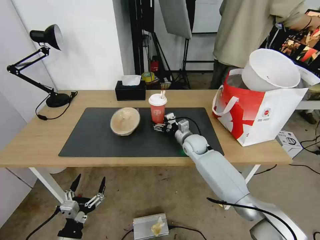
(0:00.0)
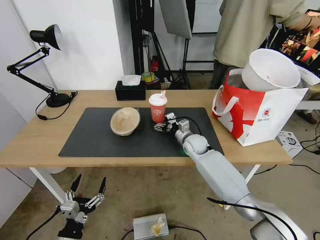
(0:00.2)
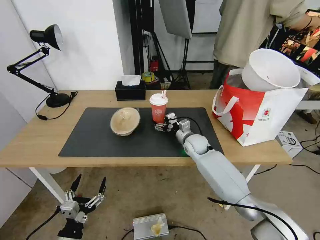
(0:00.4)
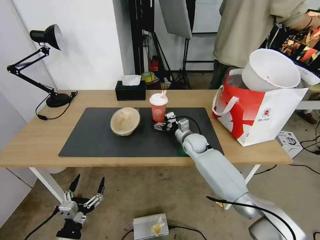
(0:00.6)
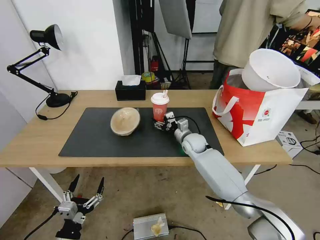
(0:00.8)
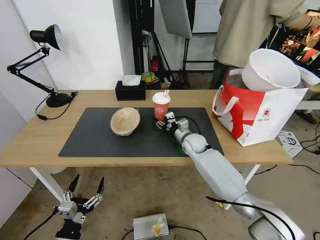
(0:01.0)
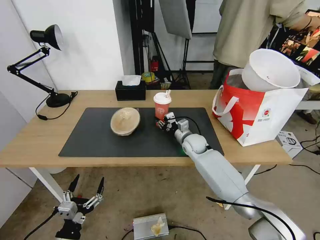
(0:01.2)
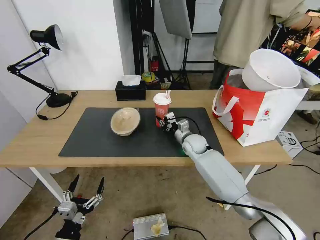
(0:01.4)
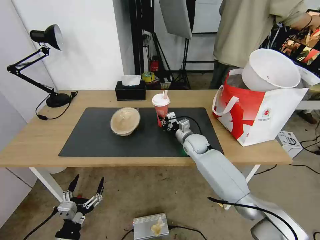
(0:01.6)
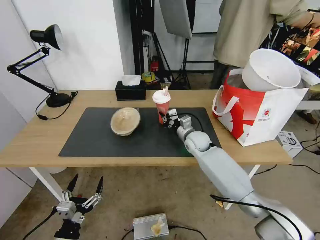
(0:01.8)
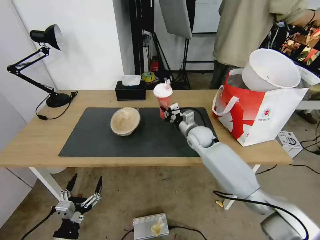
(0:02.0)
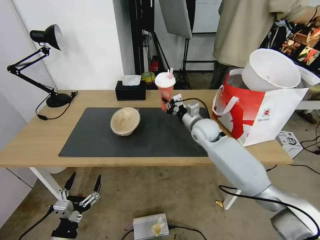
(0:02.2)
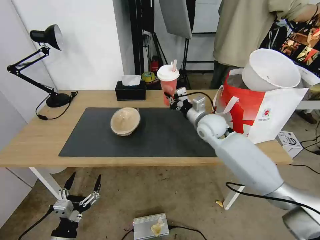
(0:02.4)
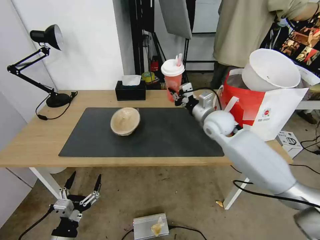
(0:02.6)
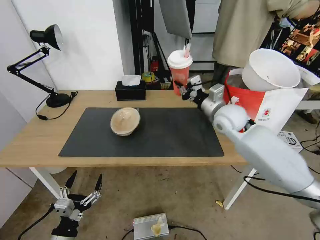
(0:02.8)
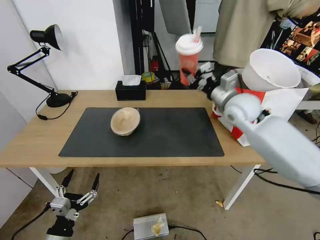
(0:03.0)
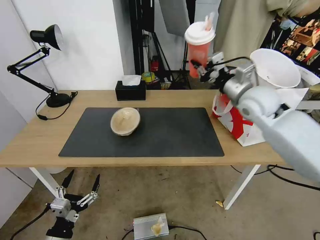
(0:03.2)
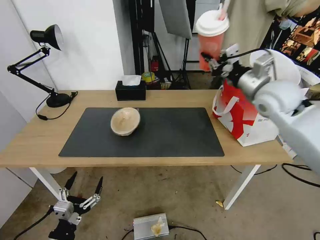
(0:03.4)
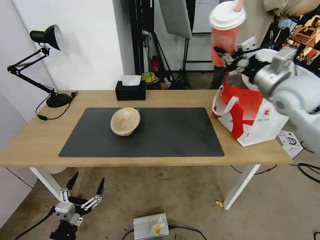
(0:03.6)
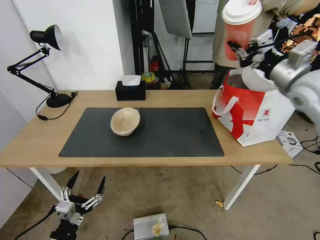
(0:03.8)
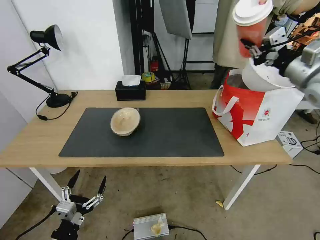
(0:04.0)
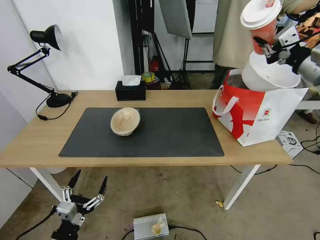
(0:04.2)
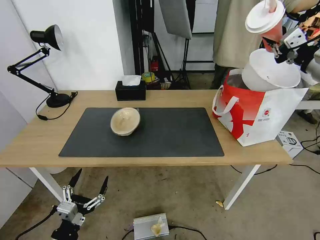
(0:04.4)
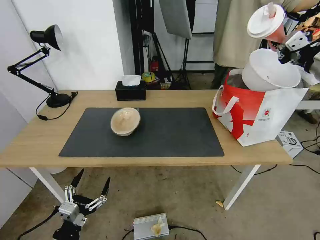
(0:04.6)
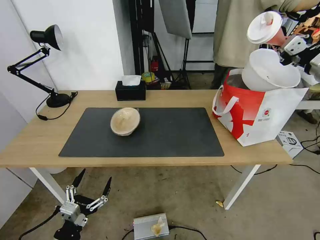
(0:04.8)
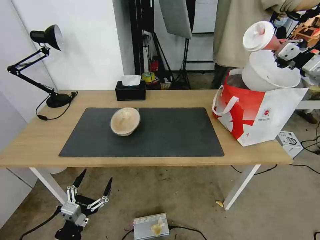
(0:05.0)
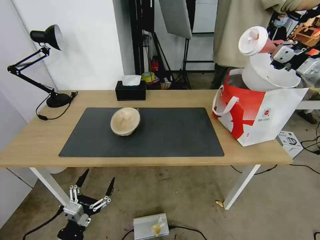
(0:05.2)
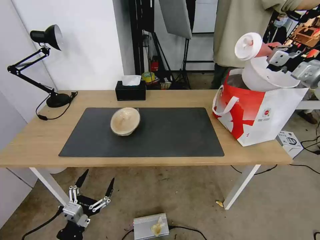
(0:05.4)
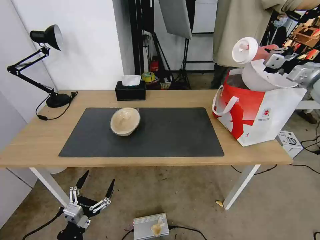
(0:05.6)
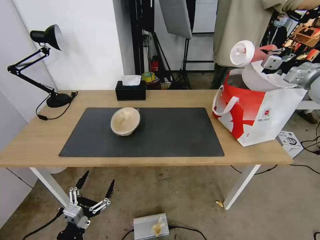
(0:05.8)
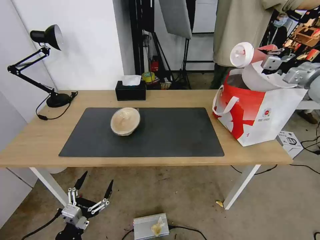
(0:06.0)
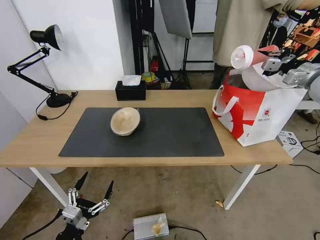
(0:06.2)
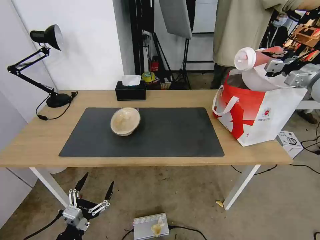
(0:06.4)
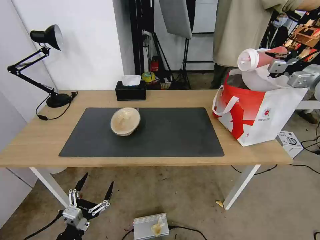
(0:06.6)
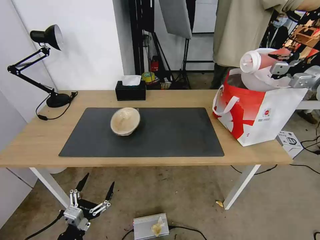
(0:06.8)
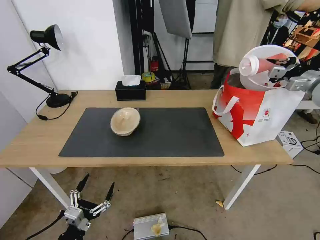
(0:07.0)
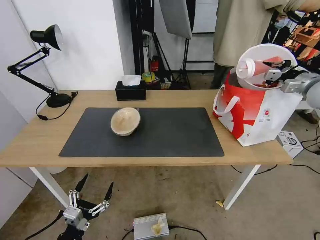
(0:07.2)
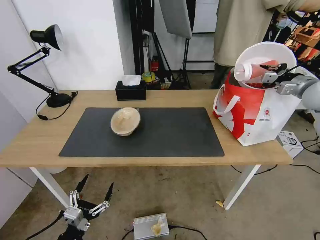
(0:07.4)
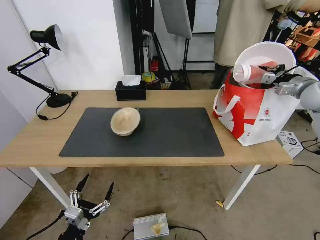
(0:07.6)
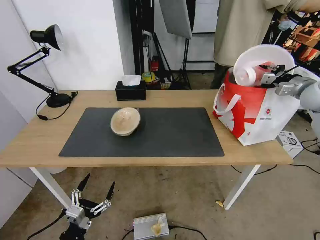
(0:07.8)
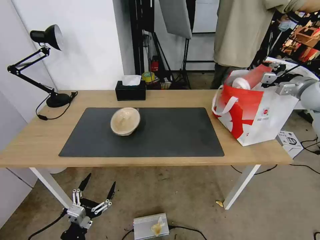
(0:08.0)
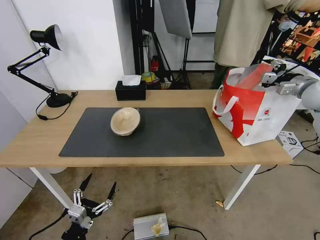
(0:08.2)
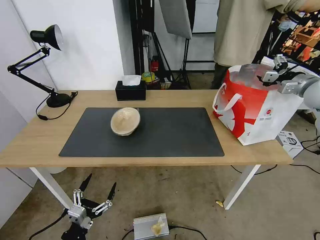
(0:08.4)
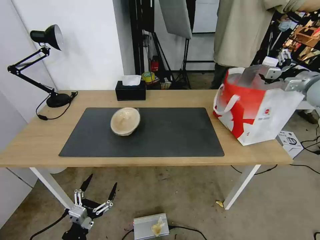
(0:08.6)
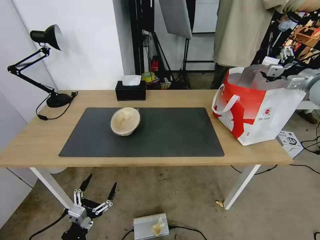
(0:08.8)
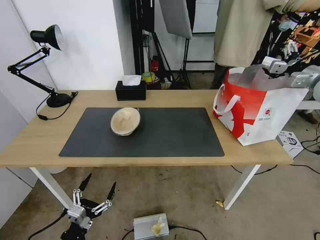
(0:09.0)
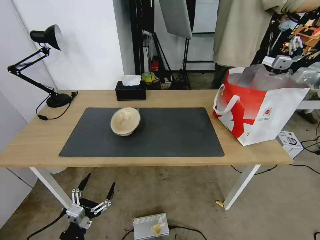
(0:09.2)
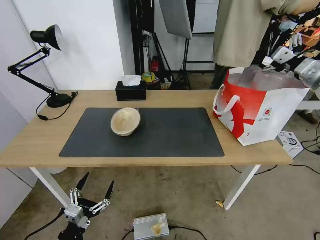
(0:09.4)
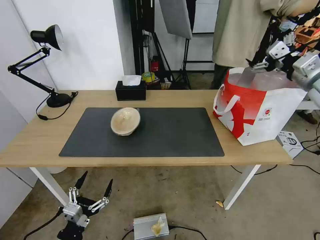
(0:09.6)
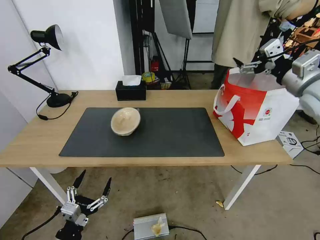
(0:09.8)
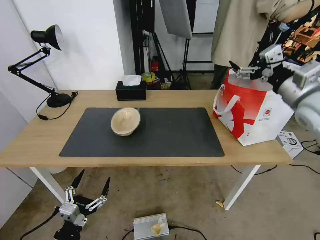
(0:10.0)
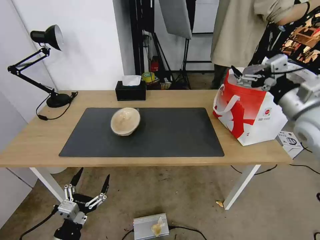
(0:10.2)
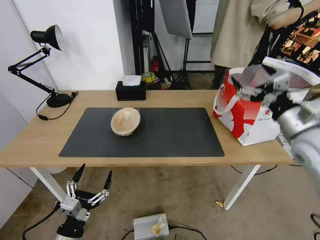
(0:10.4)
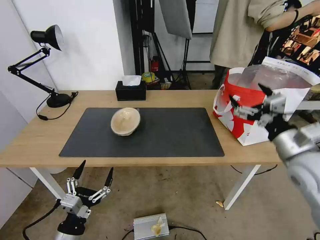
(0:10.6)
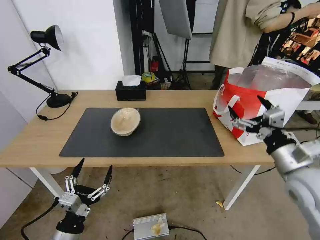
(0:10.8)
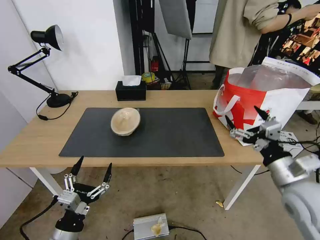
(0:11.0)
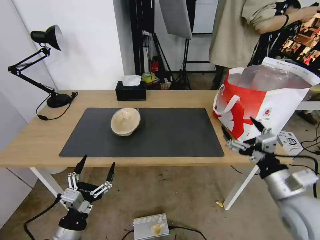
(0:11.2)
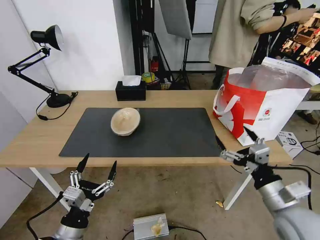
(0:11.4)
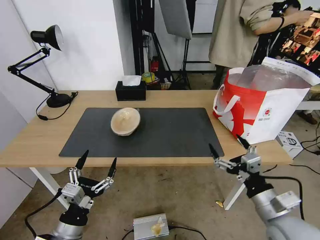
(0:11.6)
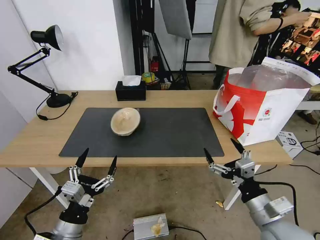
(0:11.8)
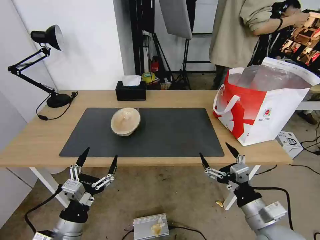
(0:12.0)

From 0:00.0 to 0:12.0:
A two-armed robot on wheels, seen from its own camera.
Task of the whole recording: Pick up the trash from the table and place it into the takeout bag.
From 0:00.0 to 0:01.6: The right gripper closes its fingers.
From 0:01.6 to 0:03.0: The right gripper heads upward and to the right, covering roughly 25 cm.
From 0:03.0 to 0:04.4: The right gripper heads to the right and upward, covering about 20 cm.
From 0:04.4 to 0:06.0: The right gripper goes approximately 5 cm forward.
From 0:06.0 to 0:07.6: The right gripper is displaced downward by roughly 5 cm.
From 0:07.6 to 0:09.0: The right gripper opens up.
From 0:09.0 to 0:10.4: The right gripper goes about 25 cm backward and to the left.
From 0:10.4 to 0:12.0: The left gripper travels upward by approximately 5 cm. The right gripper travels downward, backward and to the left by about 25 cm.

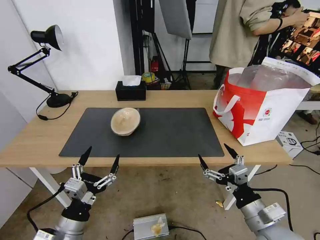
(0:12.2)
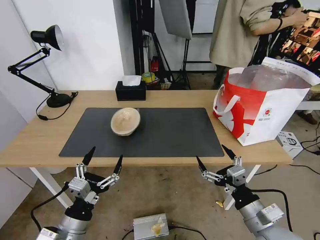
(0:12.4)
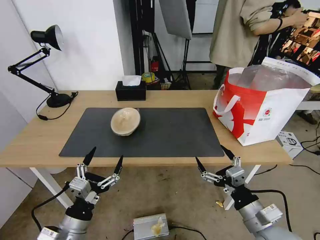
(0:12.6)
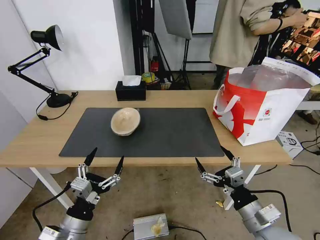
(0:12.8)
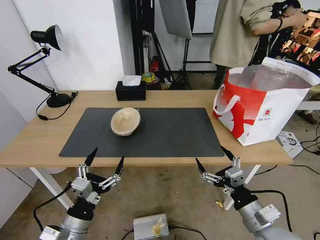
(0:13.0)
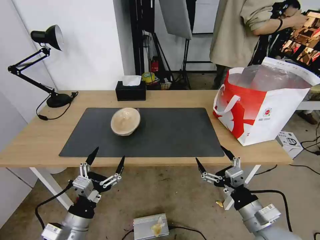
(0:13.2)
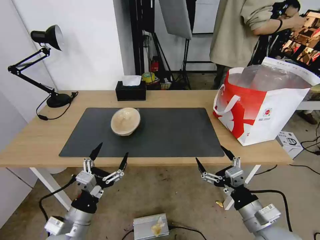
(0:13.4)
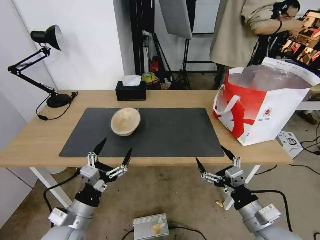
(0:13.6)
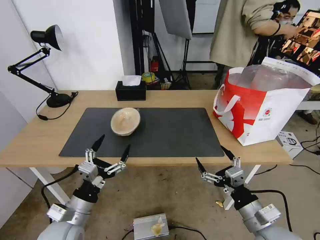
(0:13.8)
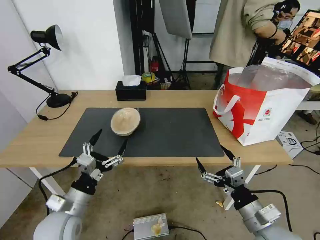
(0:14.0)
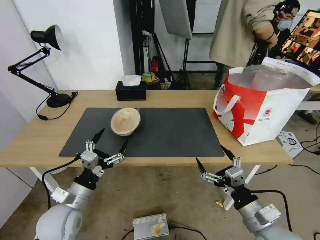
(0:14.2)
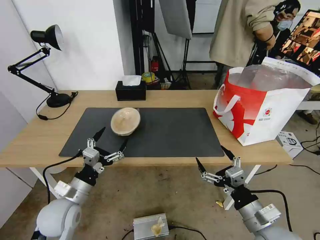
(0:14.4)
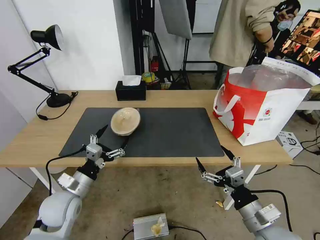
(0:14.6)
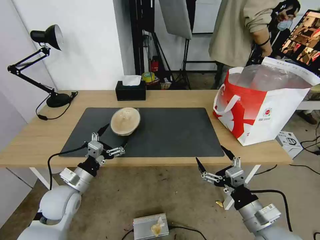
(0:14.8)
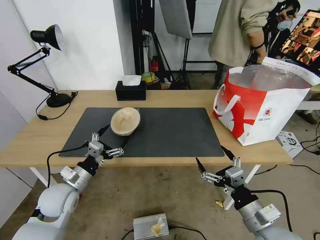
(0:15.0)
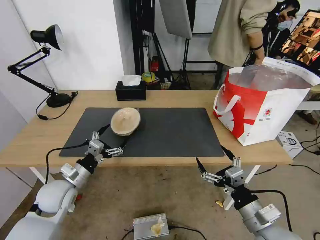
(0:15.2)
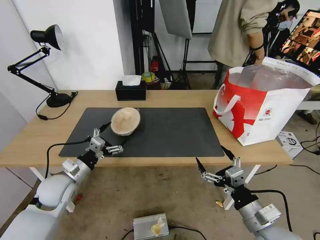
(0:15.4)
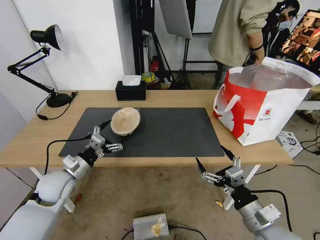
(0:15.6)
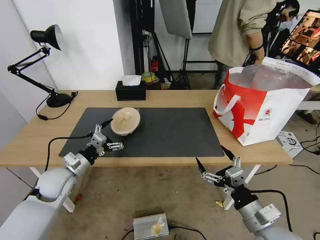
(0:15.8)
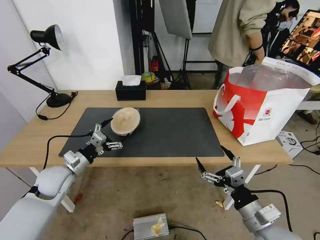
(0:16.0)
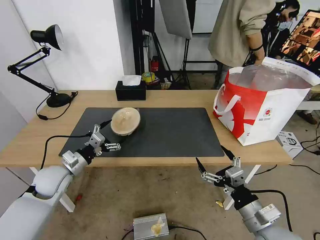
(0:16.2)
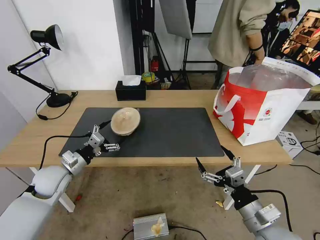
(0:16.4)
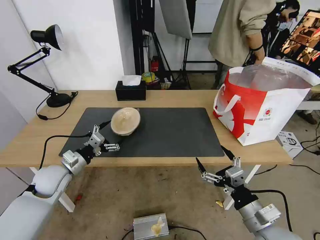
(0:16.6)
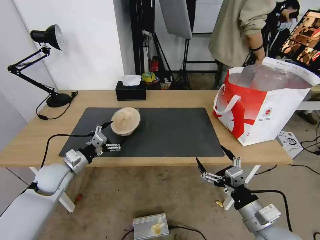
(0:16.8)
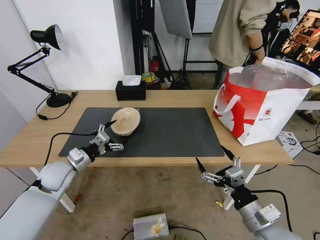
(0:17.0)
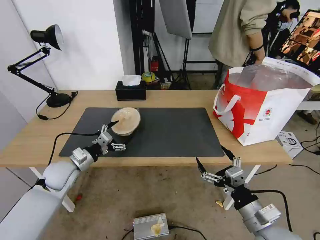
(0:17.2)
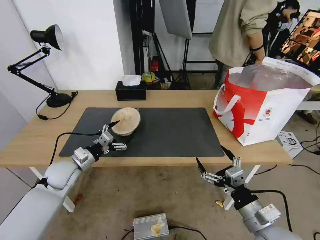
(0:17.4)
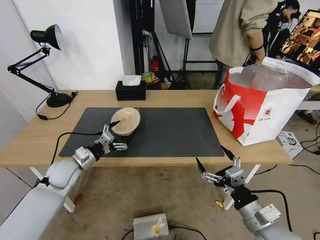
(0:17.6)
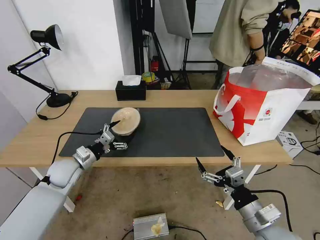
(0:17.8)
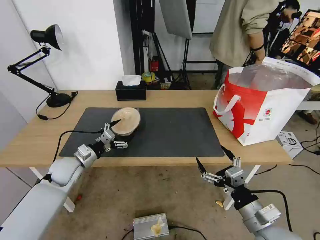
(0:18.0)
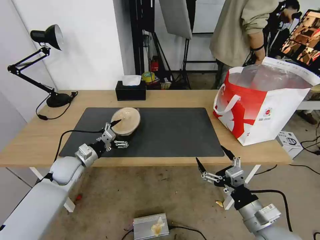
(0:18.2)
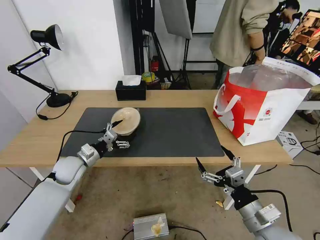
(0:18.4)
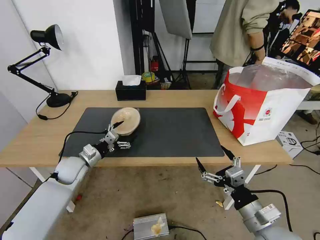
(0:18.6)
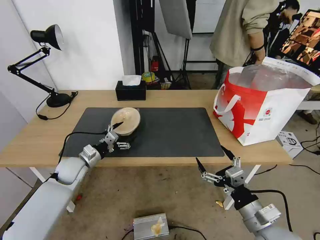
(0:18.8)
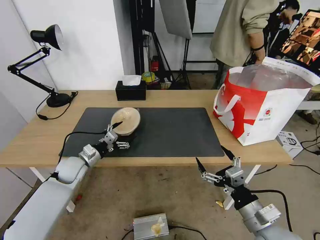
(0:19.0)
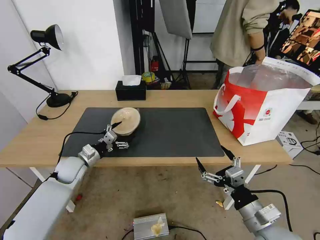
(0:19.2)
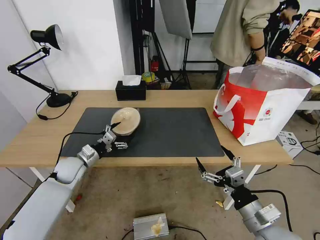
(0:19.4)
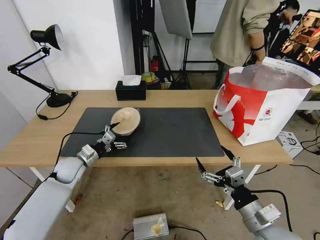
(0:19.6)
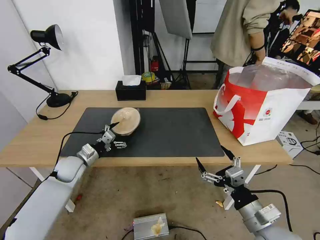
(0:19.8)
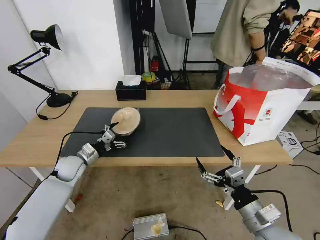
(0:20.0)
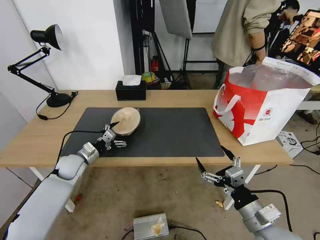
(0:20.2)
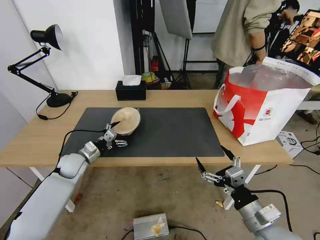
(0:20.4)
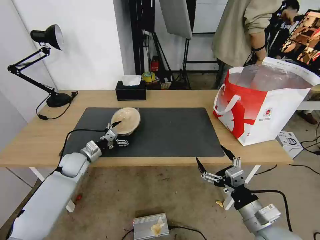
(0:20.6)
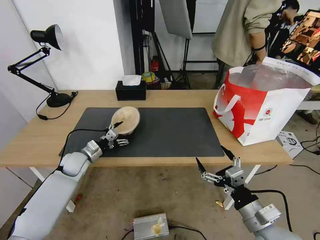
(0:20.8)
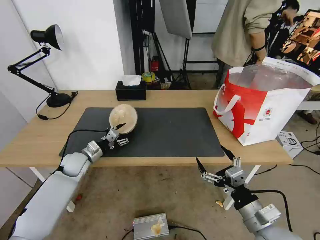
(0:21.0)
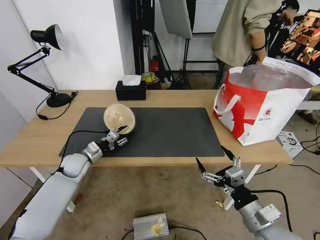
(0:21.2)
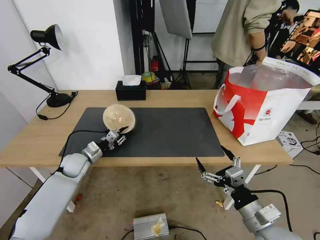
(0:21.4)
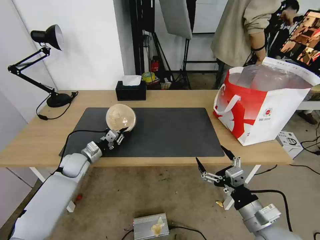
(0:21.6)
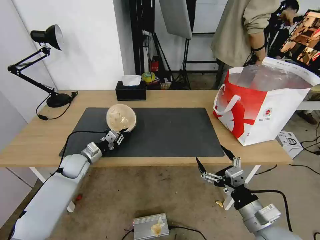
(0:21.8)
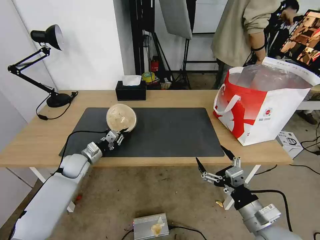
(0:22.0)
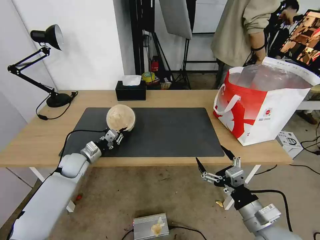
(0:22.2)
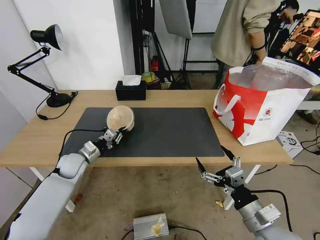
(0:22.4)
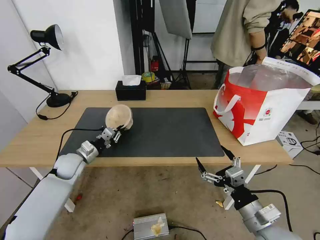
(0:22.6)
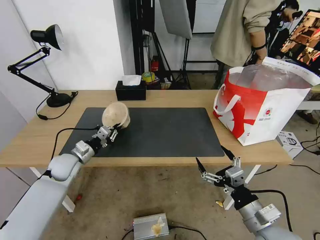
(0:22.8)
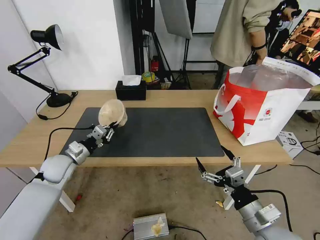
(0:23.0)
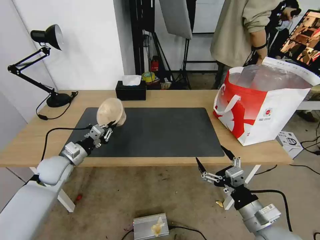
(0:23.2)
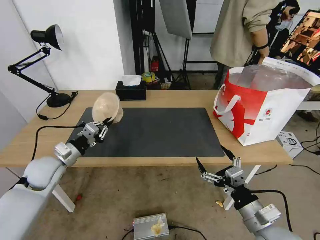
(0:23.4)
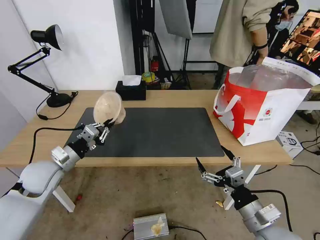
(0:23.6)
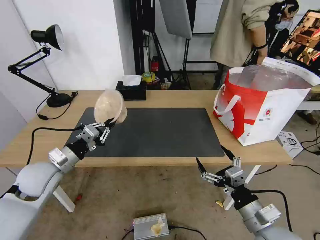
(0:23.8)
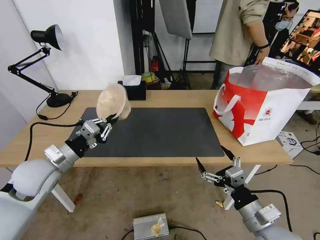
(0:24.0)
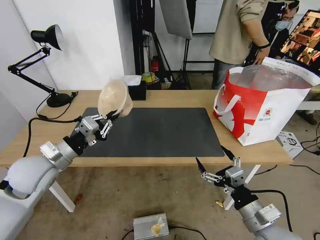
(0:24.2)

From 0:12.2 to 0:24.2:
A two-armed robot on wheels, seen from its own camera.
Task of the whole recording: Pick up the trash from the table and place it into the takeout bag.
From 0:12.2 to 0:13.8: The grippers stay close to where they were, moving slightly.
From 0:13.8 to 0:15.2: The left gripper is displaced forward and to the left by roughly 15 cm.
From 0:15.2 to 0:16.6: The left gripper changes place by about 5 cm.
From 0:16.6 to 0:18.2: The left gripper shifts by about 5 cm.
From 0:18.2 to 0:19.8: There are only small adjustments of the grippers.
From 0:19.8 to 0:21.2: The left gripper closes up.
From 0:21.2 to 0:22.6: The left gripper closes up.
From 0:22.6 to 0:24.2: The left gripper heads upward and backward, covering roughly 15 cm.
